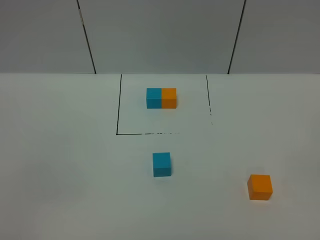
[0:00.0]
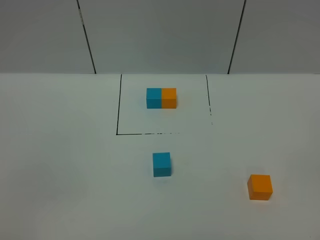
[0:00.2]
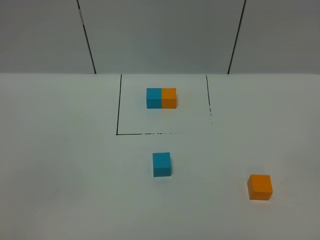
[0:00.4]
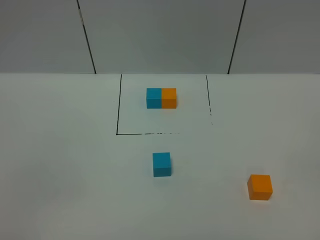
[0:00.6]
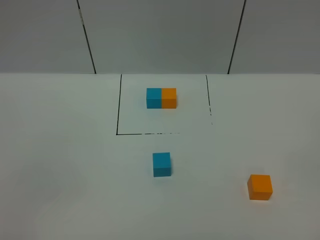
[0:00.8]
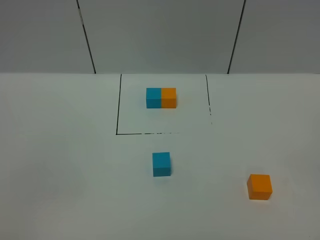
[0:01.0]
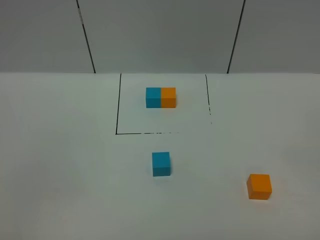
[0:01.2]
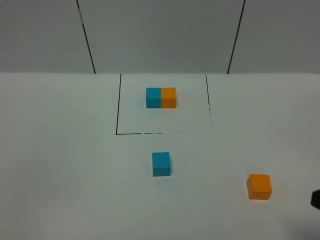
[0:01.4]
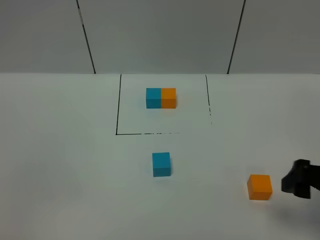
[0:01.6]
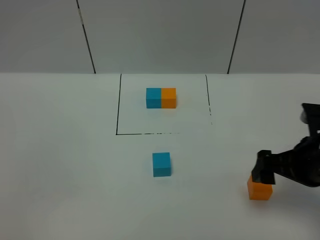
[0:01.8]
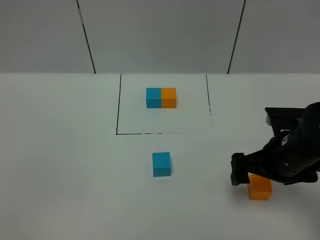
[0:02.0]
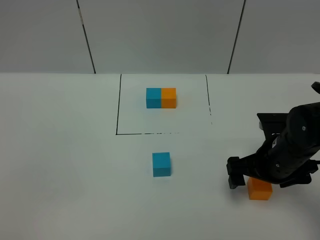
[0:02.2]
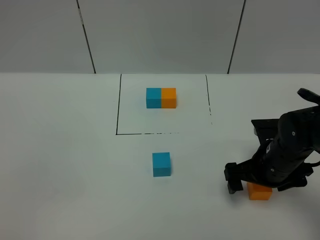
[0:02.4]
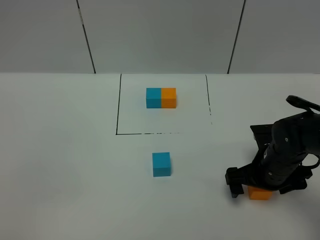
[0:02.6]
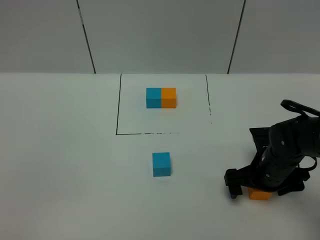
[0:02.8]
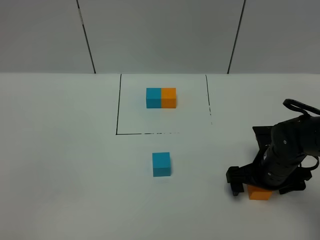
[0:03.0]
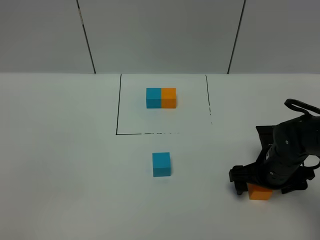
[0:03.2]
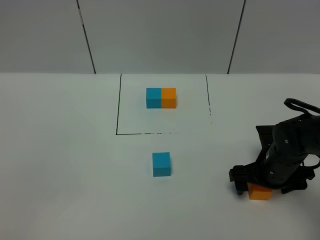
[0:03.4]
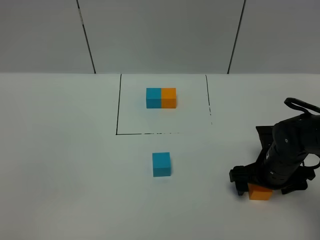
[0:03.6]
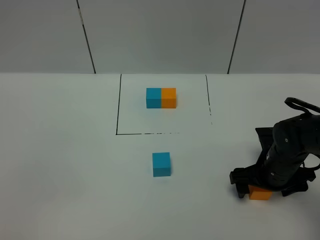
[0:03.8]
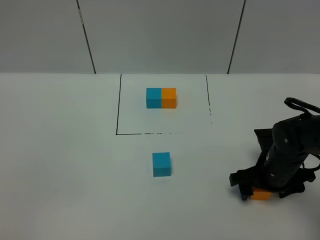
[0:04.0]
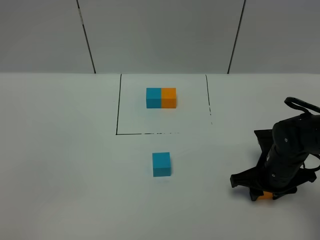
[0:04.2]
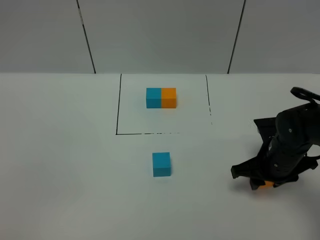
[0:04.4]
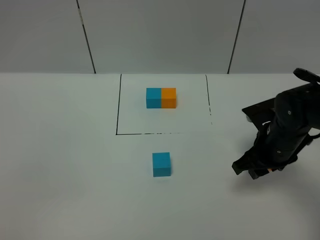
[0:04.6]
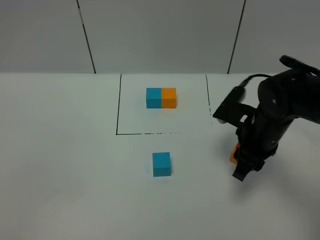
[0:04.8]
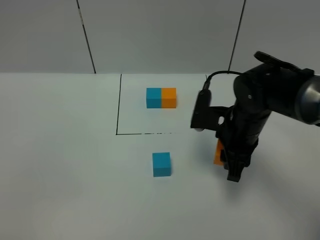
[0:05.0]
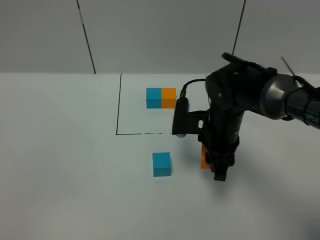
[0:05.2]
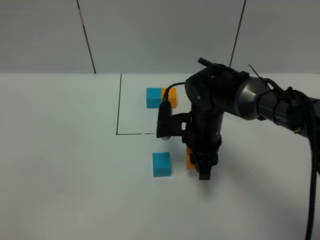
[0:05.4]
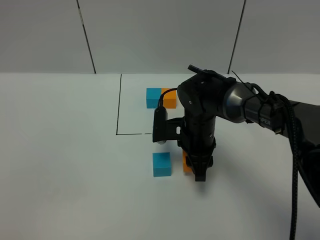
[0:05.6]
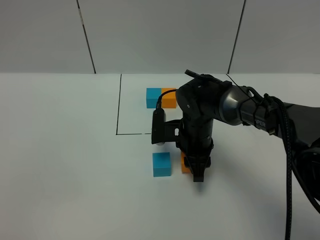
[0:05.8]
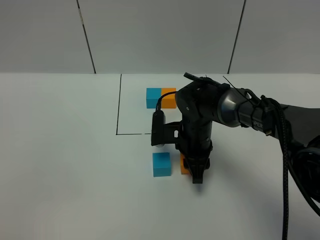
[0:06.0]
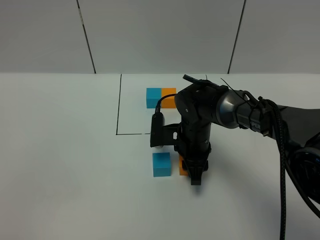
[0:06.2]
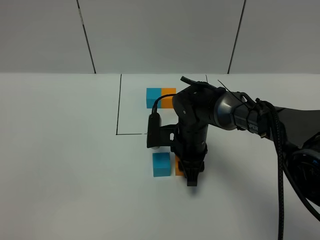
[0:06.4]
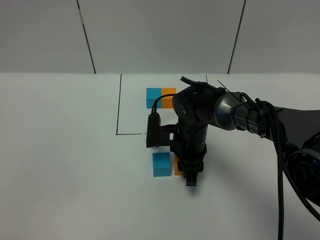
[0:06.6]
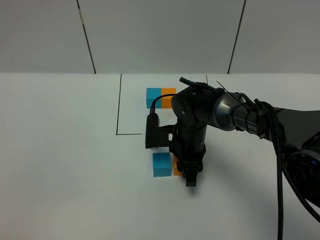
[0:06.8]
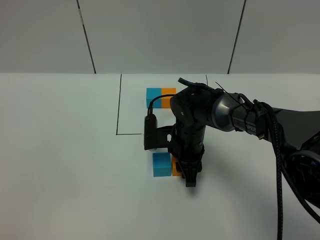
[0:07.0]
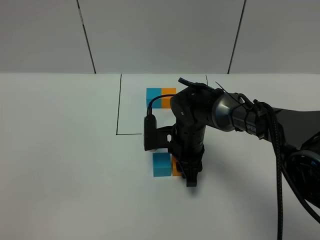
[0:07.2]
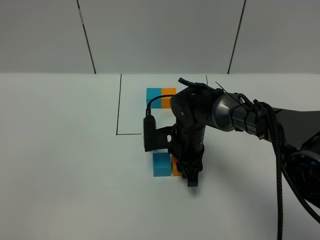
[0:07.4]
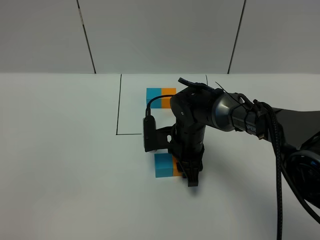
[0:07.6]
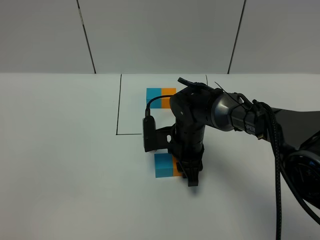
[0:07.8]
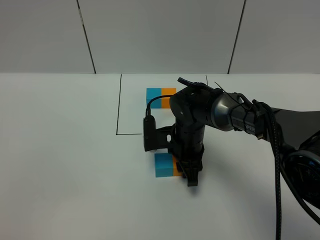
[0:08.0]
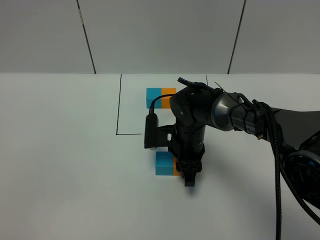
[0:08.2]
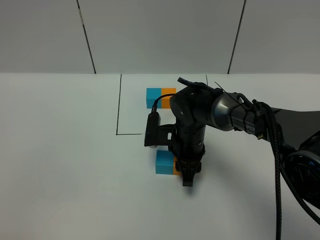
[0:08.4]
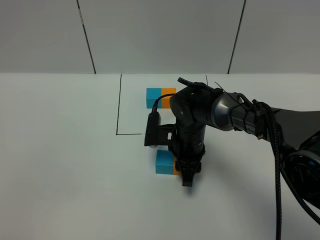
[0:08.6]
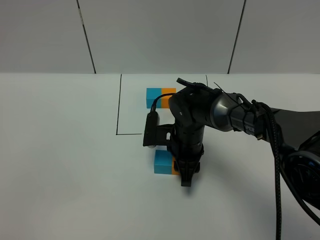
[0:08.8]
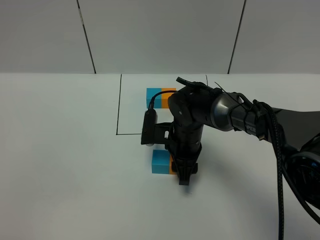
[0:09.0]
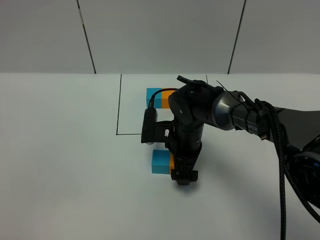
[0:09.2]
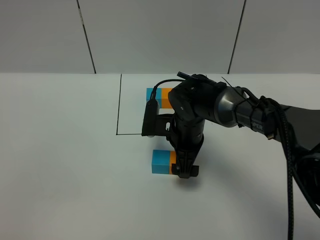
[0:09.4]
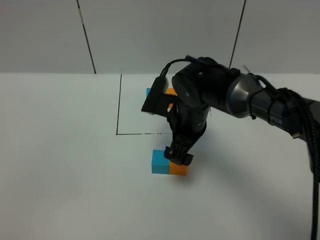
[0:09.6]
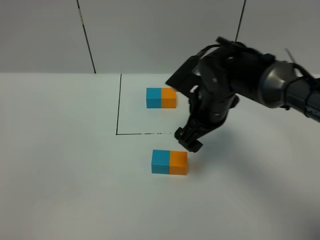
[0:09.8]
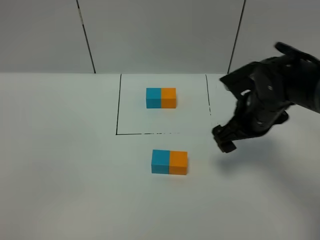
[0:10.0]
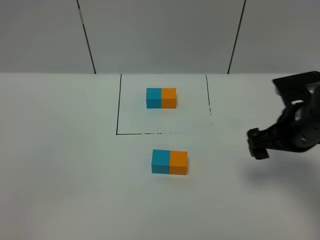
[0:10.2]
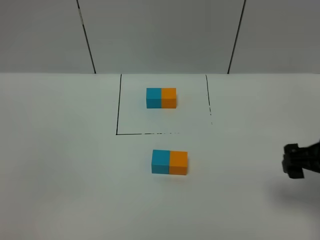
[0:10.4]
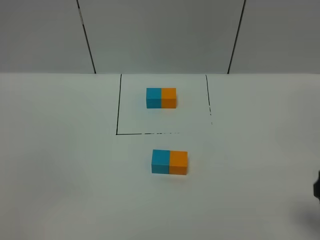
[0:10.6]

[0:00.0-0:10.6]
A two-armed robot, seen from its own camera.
Task of the whole recording: According to the building block template in front, assemble the scattered blocks together.
Step, 0:00.0 to 0:09.6: Put the orange cube on the right of the blue cube.
0:00.0 to 0:01.6: The right gripper goes approximately 20 cm forward.
0:01.6 to 0:03.0: The right gripper heads downward, forward and to the left, covering approximately 20 cm.
0:03.0 to 0:04.6: The right gripper heads upward, covering some 5 cm, and closes up.
0:04.6 to 0:06.0: The right gripper goes about 15 cm to the left.
0:06.0 to 0:09.0: The grippers make only small movements.
0:09.0 to 0:10.6: The right gripper goes roughly 35 cm to the right, backward and upward, and opens.

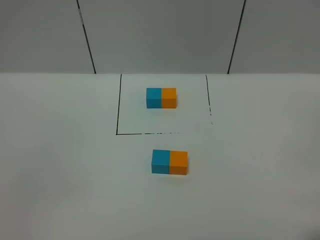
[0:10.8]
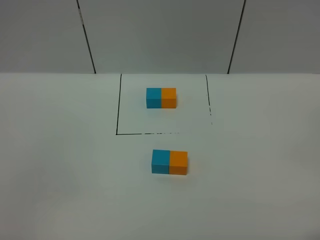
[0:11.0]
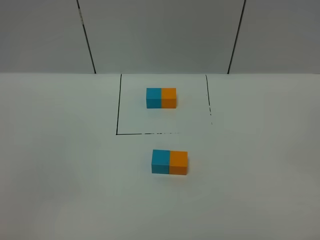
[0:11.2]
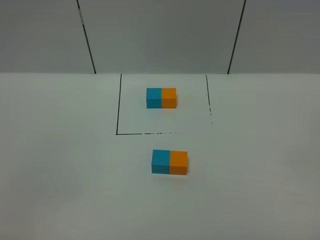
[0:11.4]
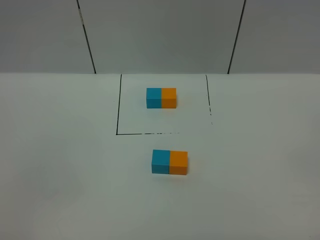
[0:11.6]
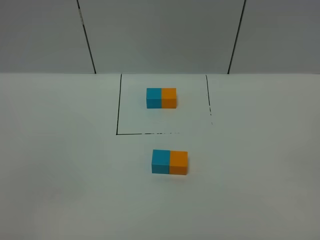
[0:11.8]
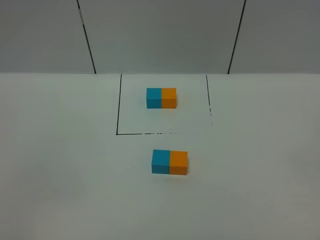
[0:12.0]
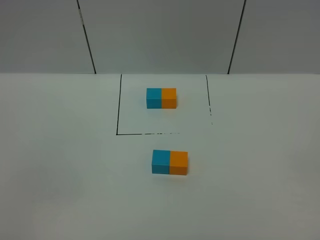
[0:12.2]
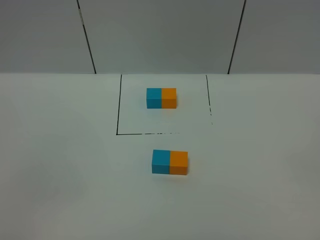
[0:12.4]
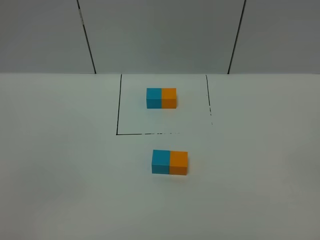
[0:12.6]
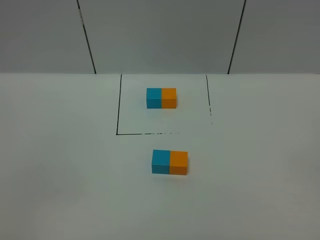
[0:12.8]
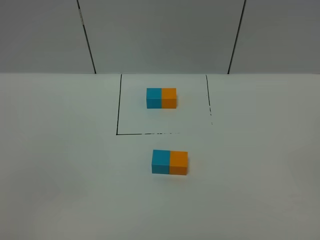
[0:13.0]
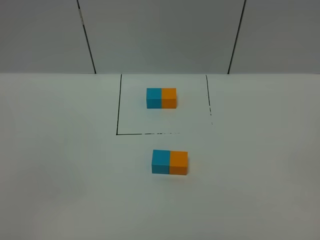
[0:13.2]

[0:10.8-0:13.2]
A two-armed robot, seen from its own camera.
Task of the whole recording: According to the building block template in front, assemble the scattered blocks together.
0:12.0 to 0:13.2: Both grippers stay put.
